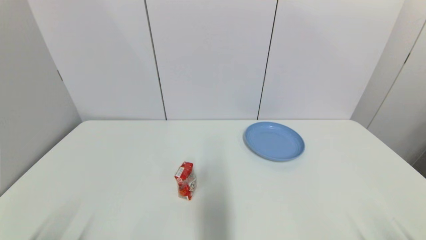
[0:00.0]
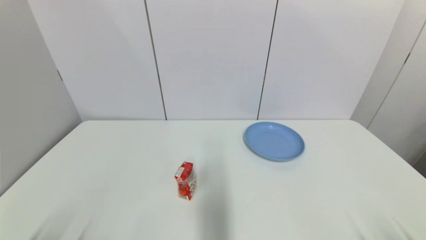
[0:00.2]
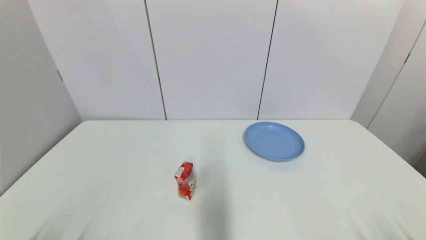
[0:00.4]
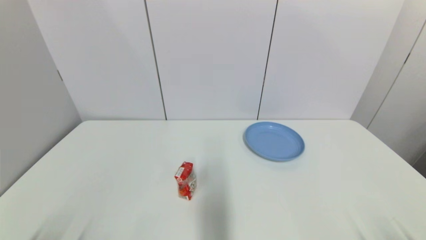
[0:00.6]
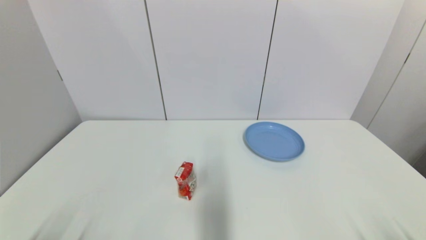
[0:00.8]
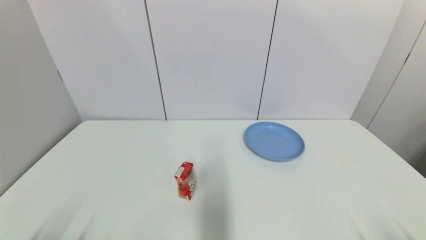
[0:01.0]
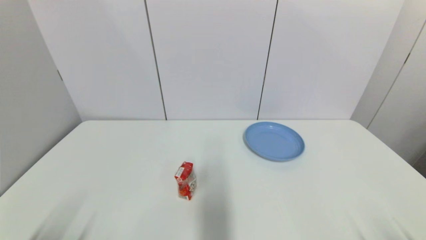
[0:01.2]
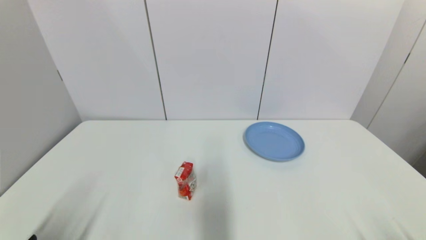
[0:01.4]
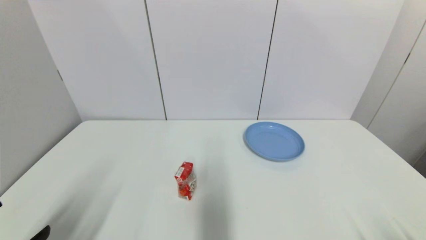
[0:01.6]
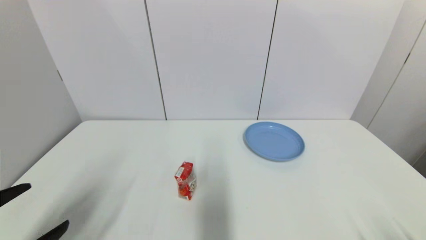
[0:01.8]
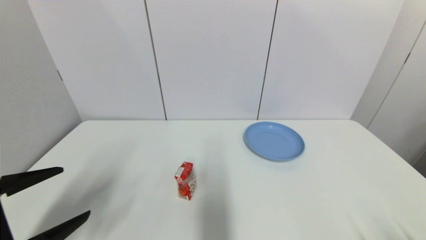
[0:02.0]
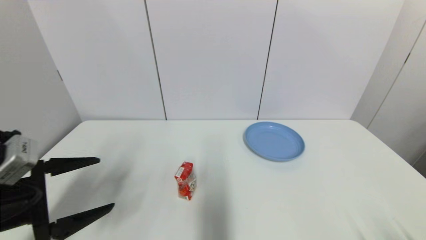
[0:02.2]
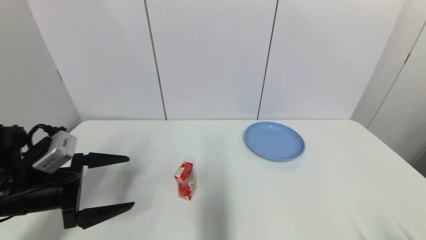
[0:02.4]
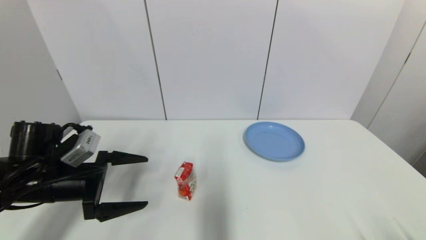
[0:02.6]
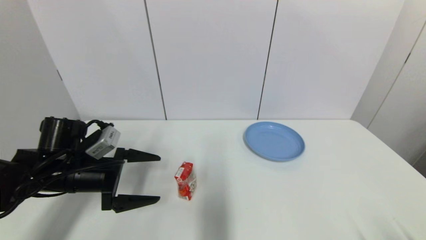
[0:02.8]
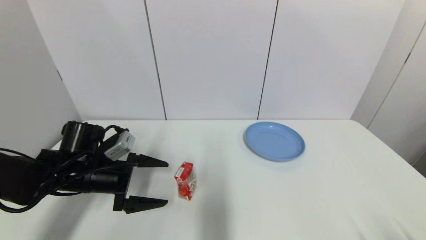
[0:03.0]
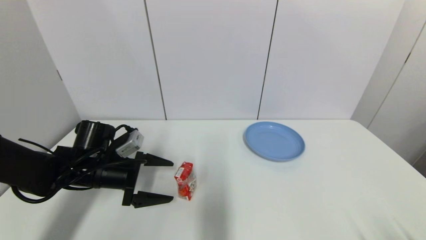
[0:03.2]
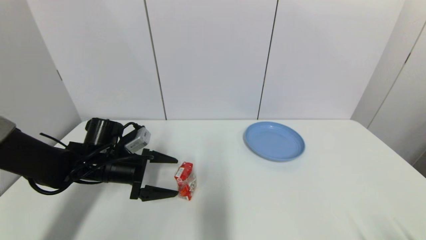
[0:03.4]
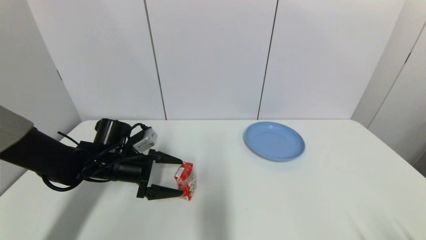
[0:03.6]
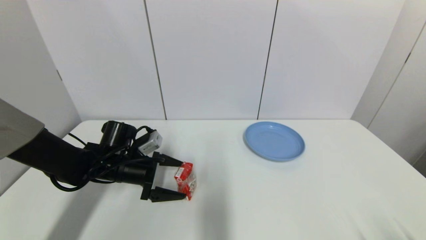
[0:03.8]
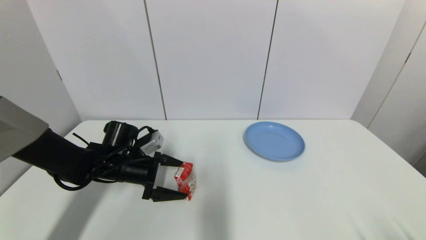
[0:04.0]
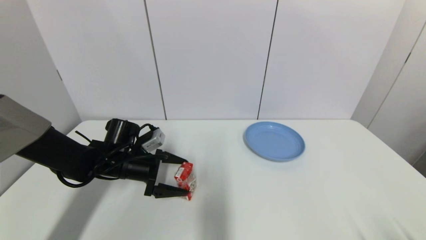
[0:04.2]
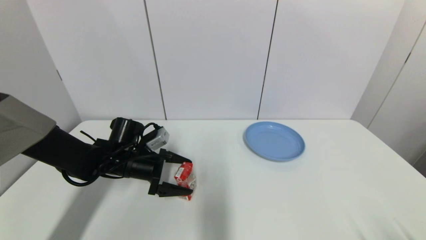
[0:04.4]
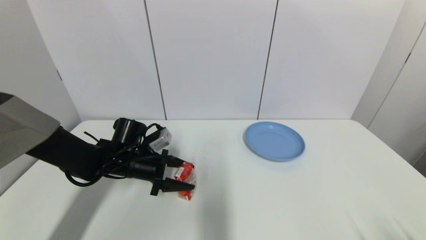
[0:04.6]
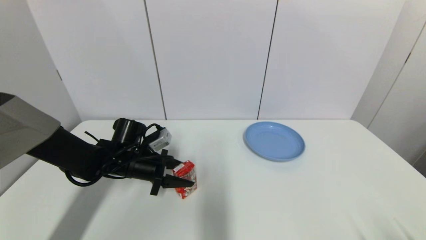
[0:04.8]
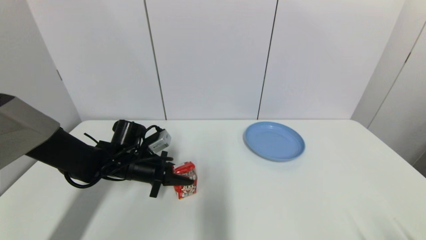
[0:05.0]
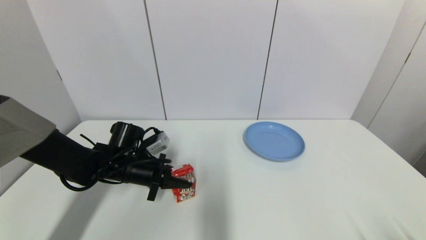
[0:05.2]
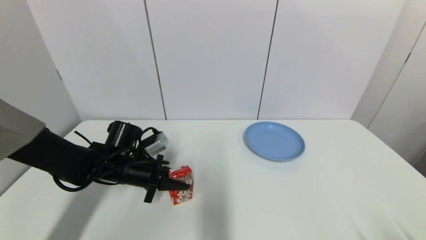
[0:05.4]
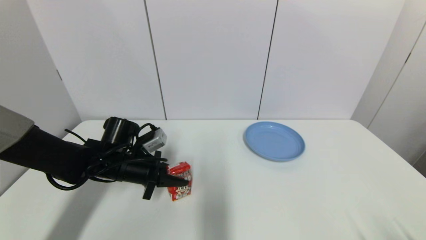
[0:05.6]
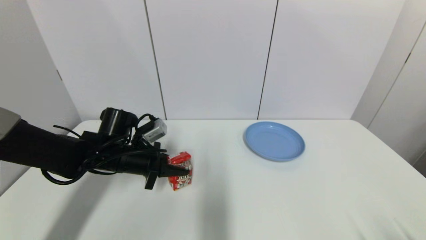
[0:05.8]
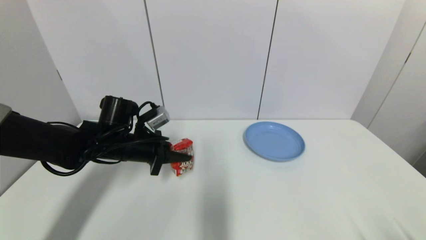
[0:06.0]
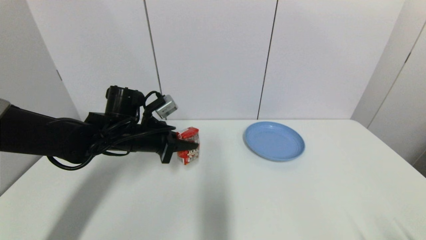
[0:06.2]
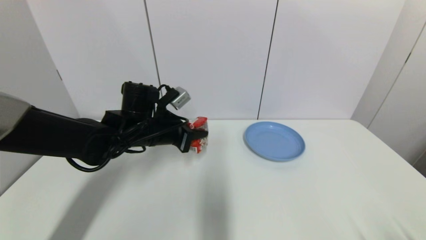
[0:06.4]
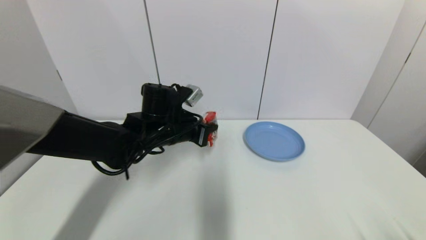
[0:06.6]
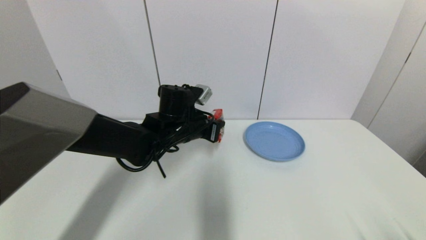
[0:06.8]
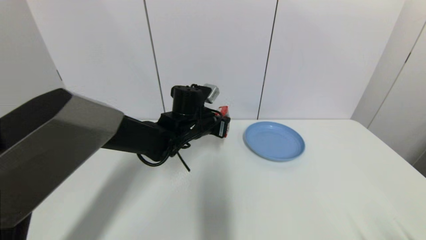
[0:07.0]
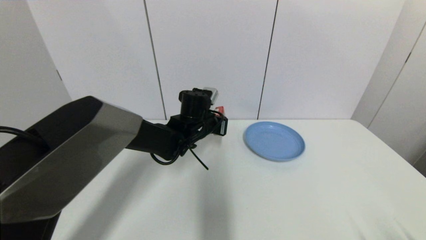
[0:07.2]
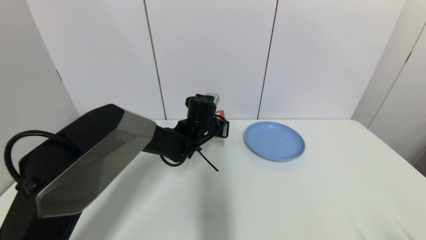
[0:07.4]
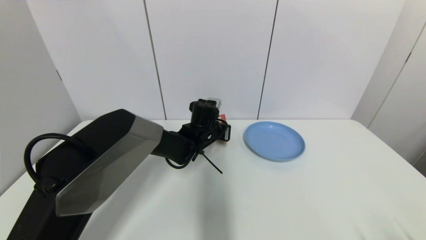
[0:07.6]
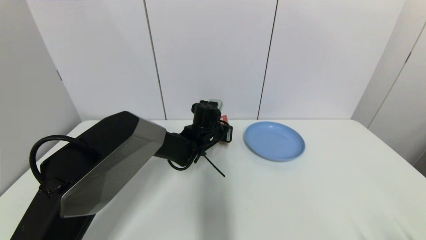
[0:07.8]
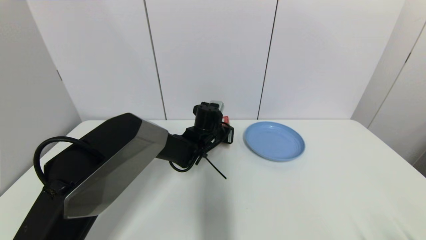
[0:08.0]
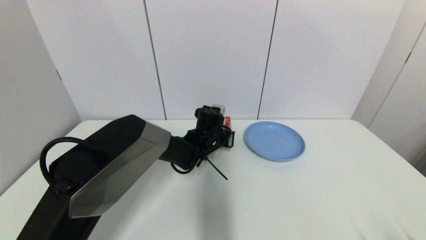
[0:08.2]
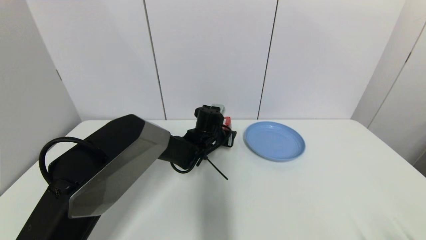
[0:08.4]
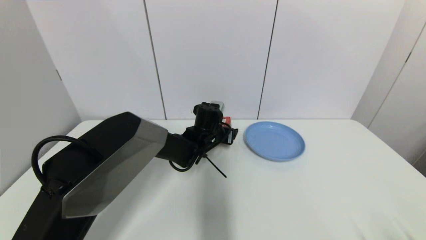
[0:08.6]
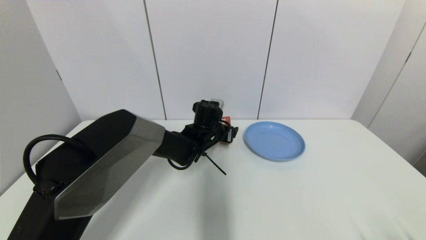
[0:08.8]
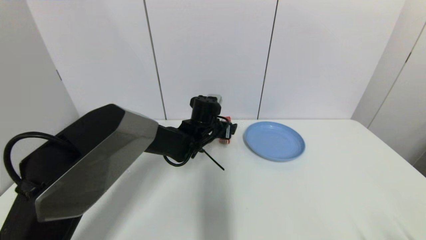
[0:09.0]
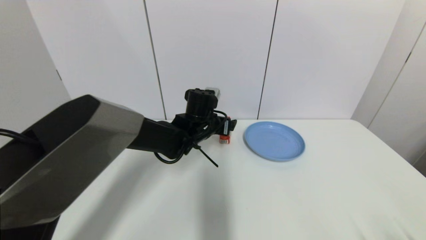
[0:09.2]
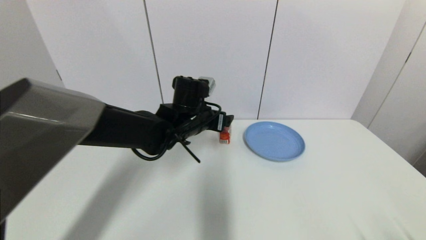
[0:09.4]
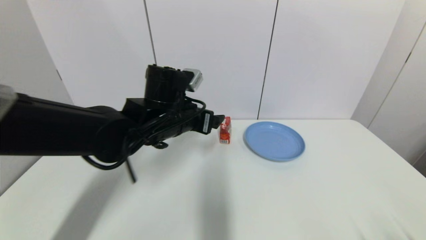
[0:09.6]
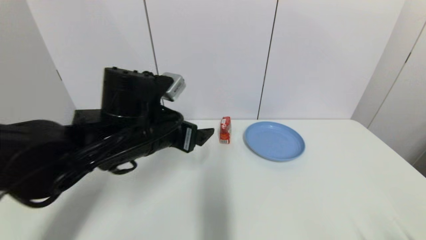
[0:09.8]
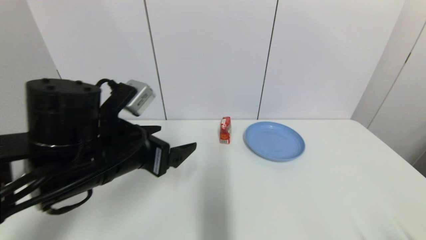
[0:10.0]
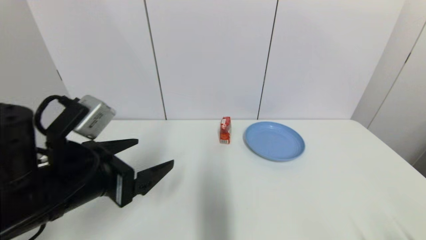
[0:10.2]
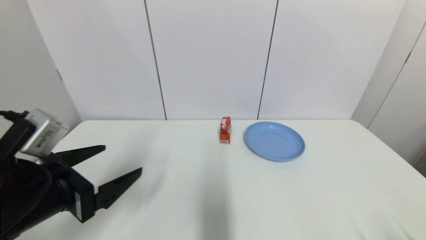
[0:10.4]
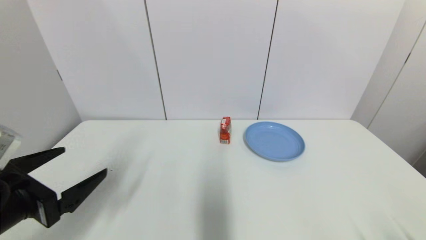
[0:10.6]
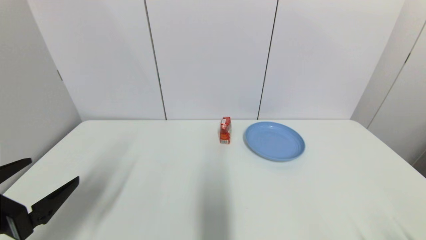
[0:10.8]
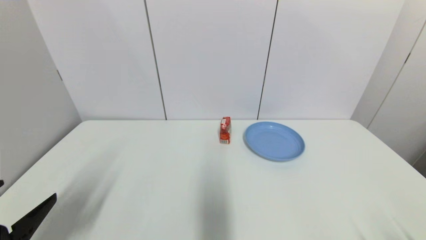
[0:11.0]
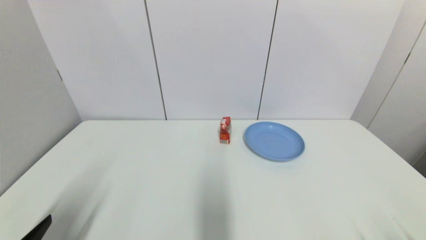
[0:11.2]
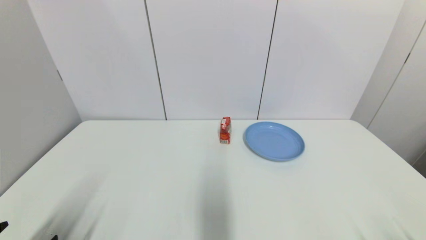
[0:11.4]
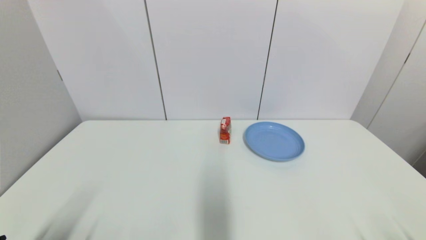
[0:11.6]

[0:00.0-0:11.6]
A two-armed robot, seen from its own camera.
Step, 0:01.4 to 0:05.2: Grasp the wangzai milk with left gripper.
Step, 0:05.4 to 0:08.4: Place the wangzai milk on the table with left gripper.
0:00.0 to 0:01.4: The left gripper goes roughly 5 cm upward.
0:01.4 to 0:02.8: The left gripper travels forward by some 25 cm.
0:02.8 to 0:04.4: The left gripper goes roughly 10 cm forward and to the right.
0:04.4 to 0:05.8: The left gripper closes its fingers.
0:05.8 to 0:07.2: The left gripper heads to the right and forward, covering about 20 cm.
0:07.2 to 0:08.8: The left gripper opens.
0:08.8 to 0:10.2: The left gripper travels backward, to the left and upward by some 35 cm.
0:10.2 to 0:11.6: The left gripper is displaced backward, downward and to the left by approximately 20 cm.

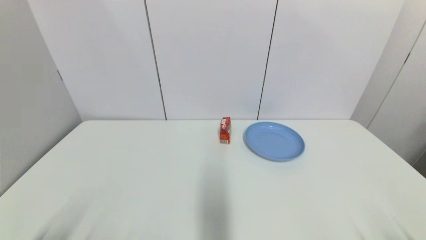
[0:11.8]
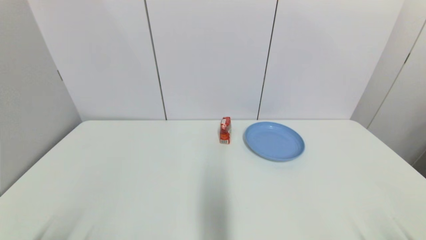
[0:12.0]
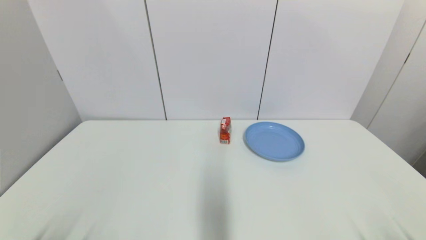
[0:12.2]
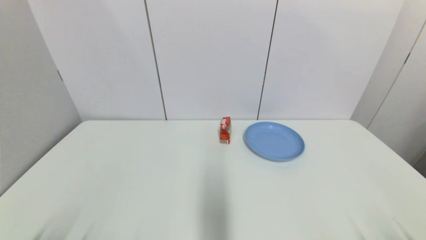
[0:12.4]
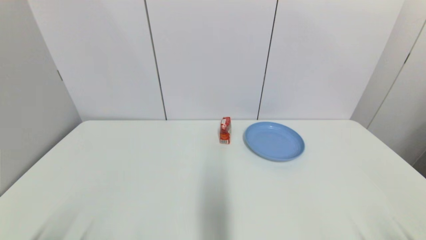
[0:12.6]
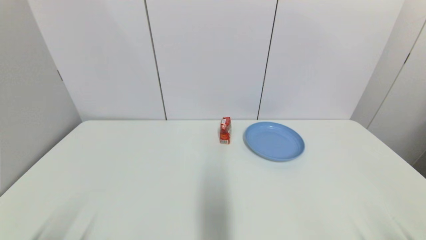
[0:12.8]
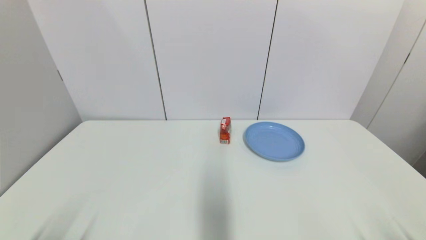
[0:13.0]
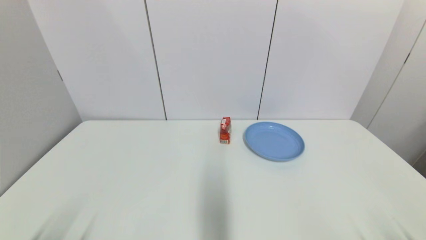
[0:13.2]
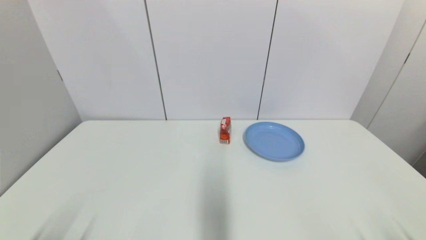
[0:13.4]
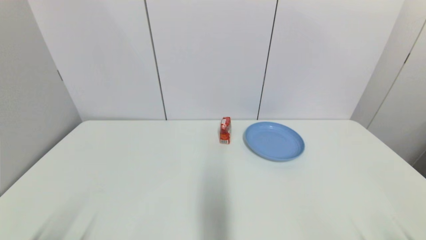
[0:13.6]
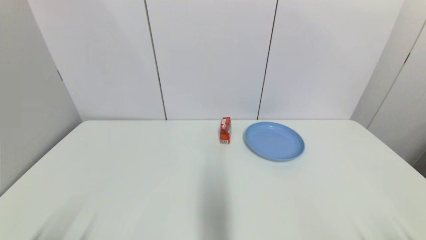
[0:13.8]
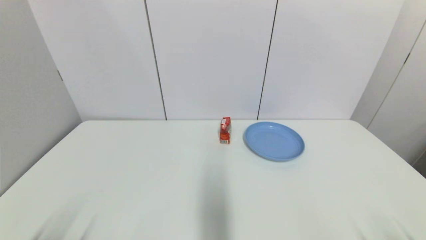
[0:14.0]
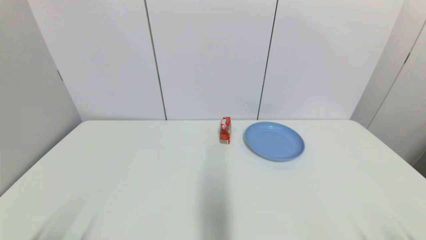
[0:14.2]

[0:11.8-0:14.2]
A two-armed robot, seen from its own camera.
0:13.0 to 0:14.2: Both grippers stay about where they are.

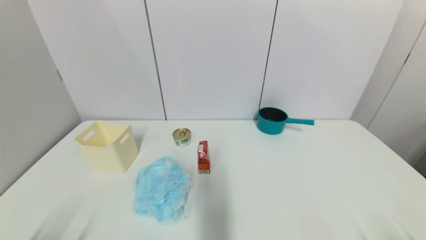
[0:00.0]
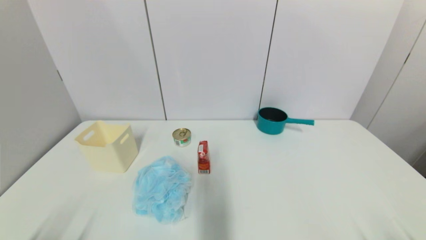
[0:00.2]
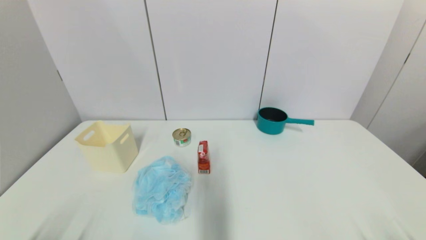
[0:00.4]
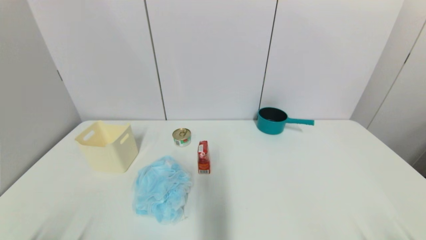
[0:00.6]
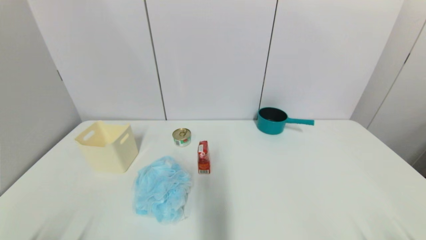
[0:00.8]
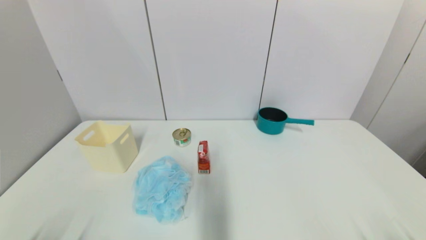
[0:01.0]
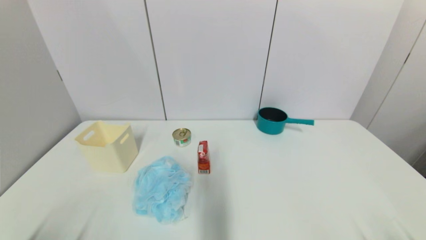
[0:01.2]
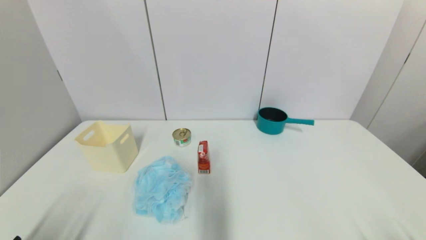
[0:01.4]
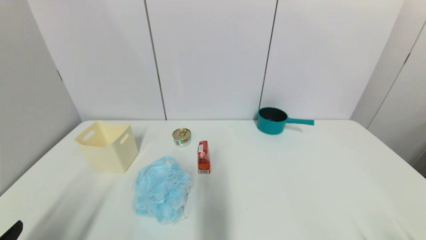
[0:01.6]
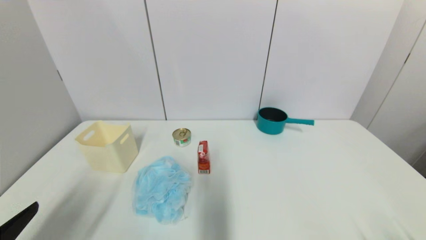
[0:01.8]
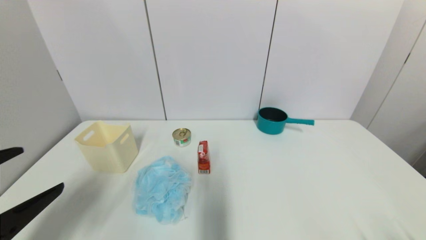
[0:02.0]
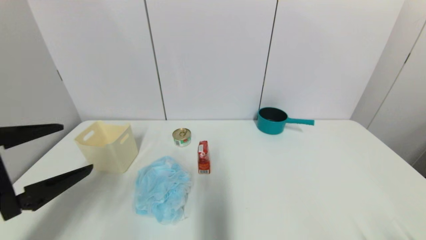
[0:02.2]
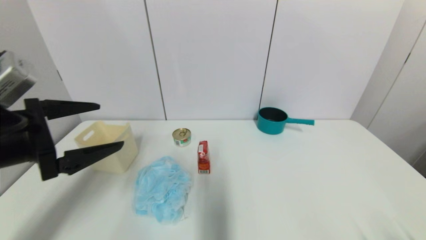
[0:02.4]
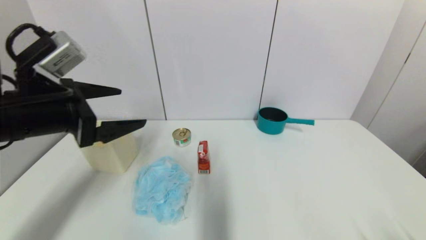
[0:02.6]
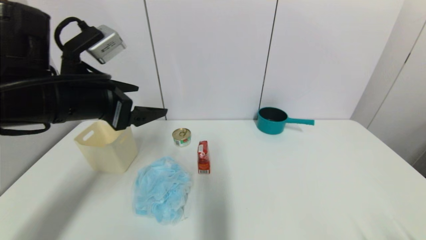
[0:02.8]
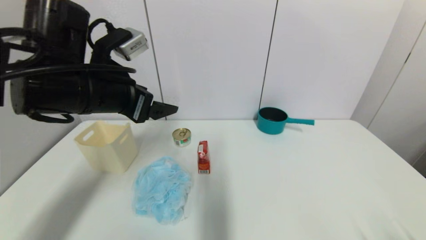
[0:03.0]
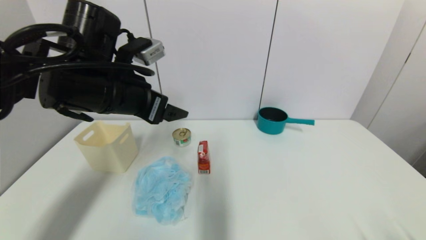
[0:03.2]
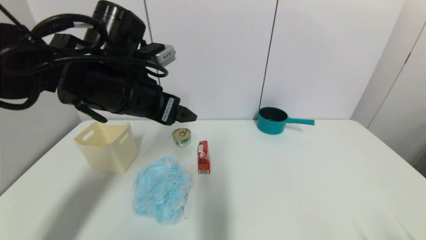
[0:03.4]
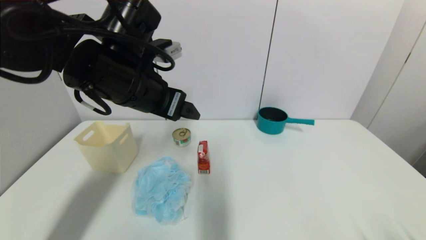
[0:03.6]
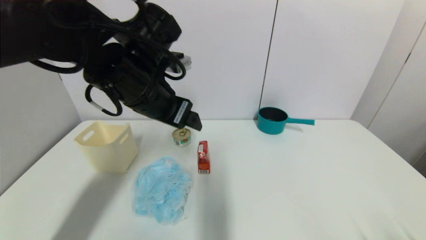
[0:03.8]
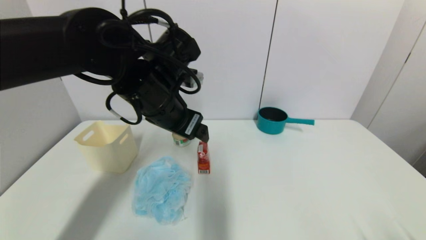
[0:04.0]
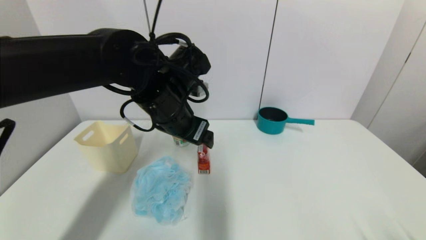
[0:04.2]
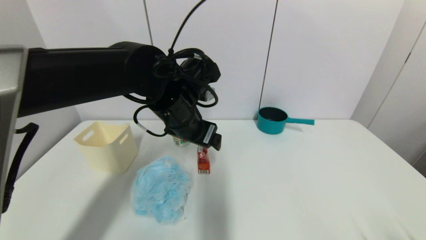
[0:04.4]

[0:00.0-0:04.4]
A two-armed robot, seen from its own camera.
0:01.4 to 0:03.0: The left gripper shifts some 35 cm forward, upward and to the right.
0:03.0 to 0:04.4: The left gripper heads to the right, downward and forward, covering approximately 15 cm.
